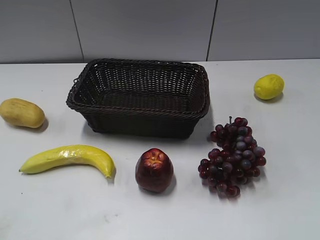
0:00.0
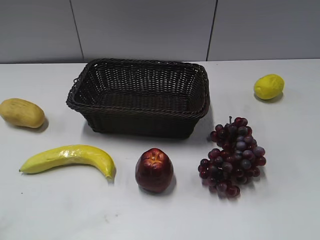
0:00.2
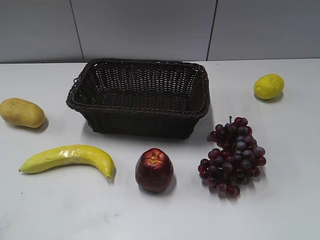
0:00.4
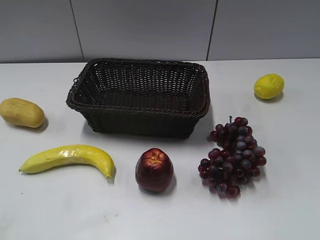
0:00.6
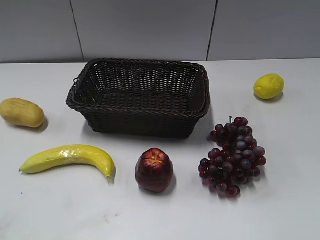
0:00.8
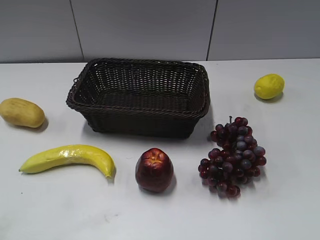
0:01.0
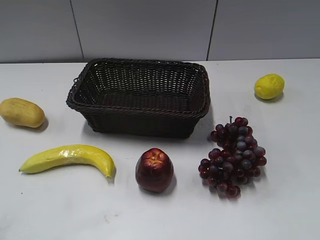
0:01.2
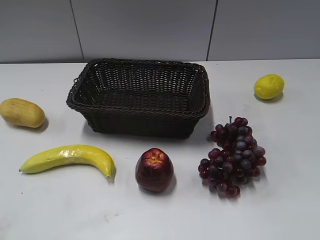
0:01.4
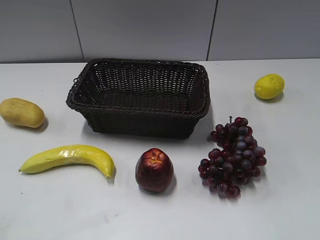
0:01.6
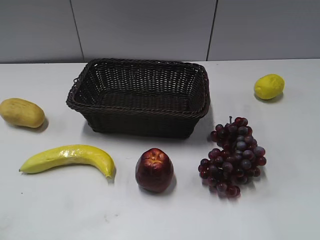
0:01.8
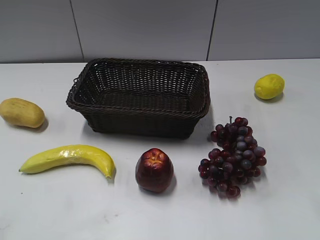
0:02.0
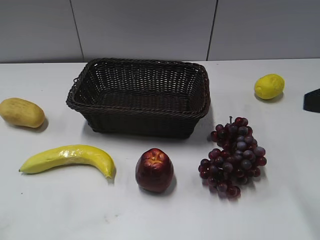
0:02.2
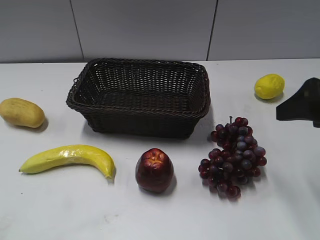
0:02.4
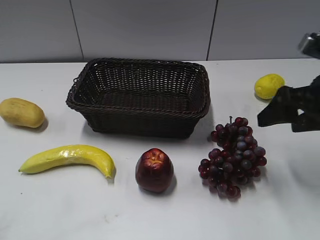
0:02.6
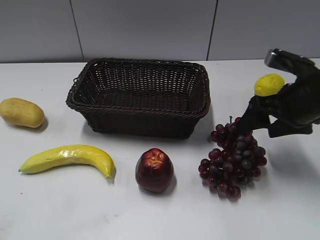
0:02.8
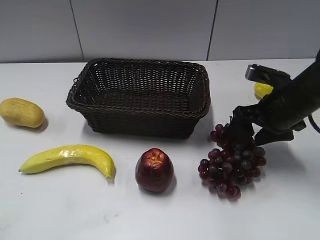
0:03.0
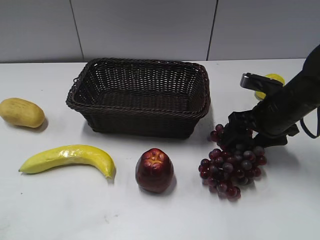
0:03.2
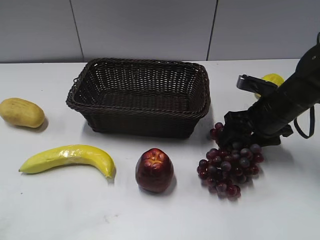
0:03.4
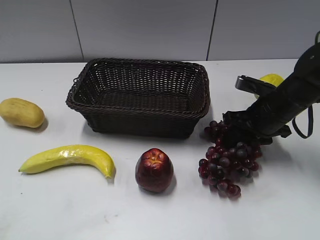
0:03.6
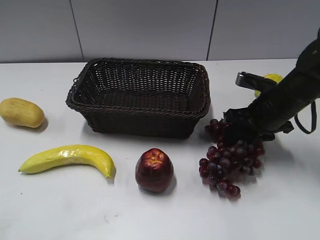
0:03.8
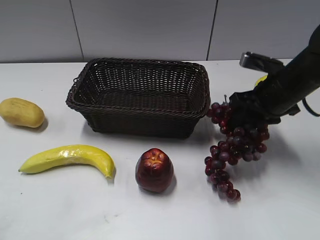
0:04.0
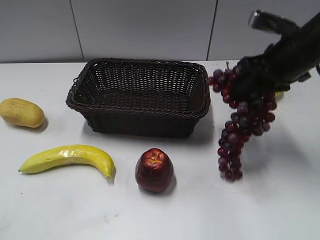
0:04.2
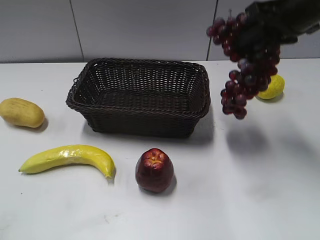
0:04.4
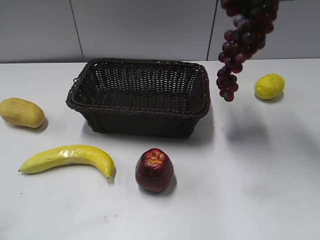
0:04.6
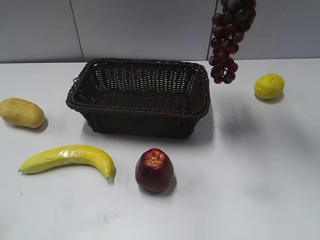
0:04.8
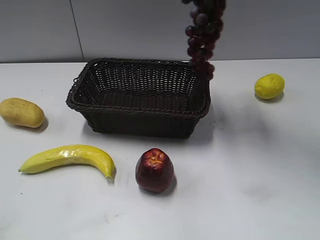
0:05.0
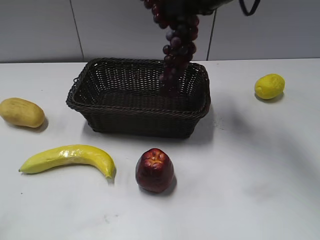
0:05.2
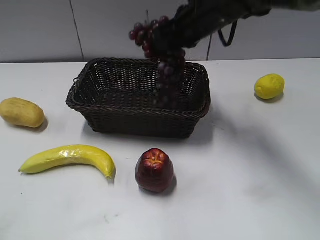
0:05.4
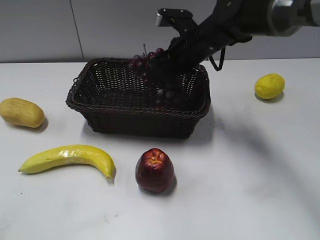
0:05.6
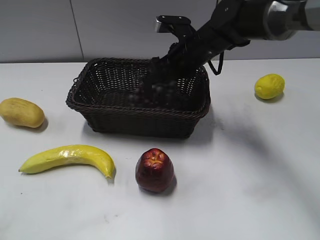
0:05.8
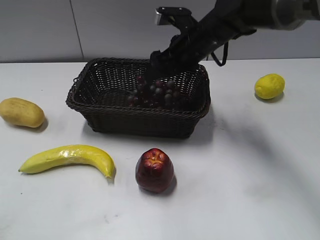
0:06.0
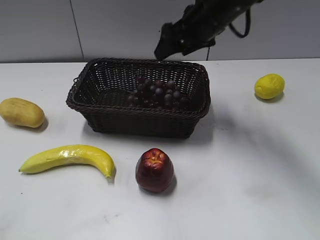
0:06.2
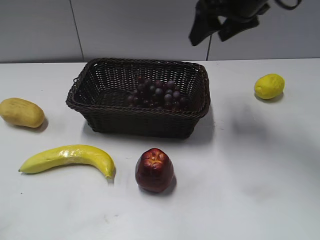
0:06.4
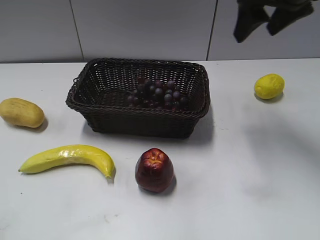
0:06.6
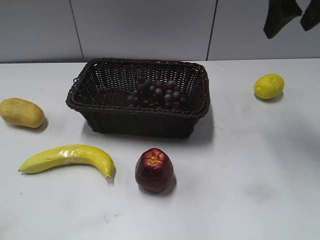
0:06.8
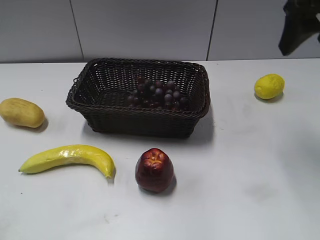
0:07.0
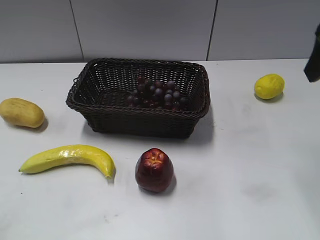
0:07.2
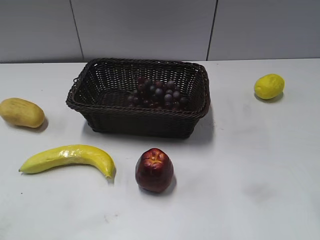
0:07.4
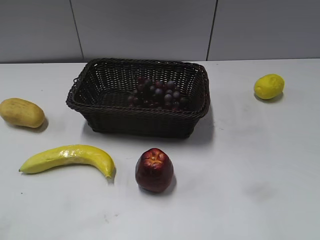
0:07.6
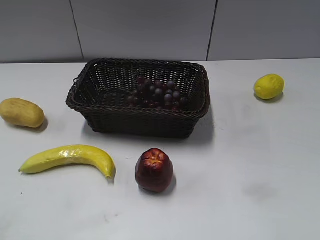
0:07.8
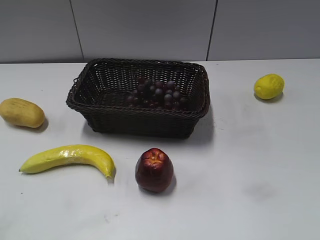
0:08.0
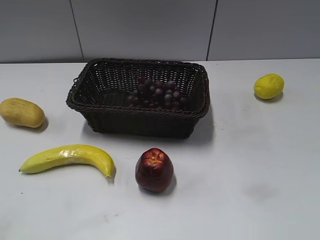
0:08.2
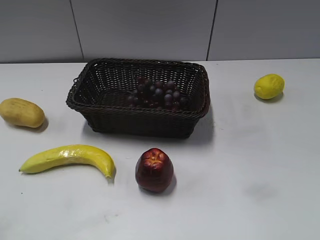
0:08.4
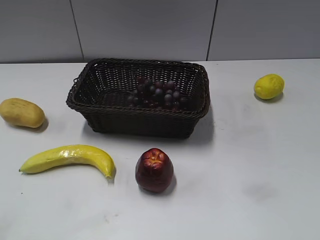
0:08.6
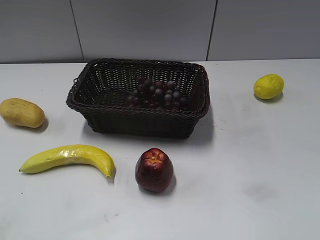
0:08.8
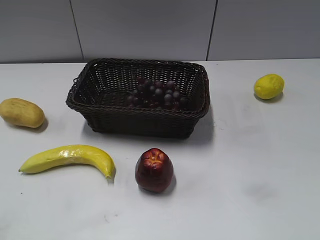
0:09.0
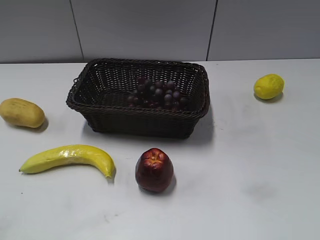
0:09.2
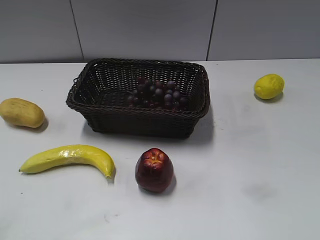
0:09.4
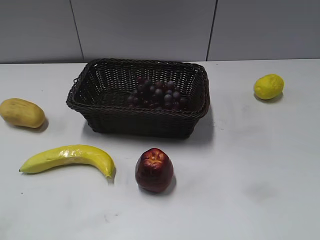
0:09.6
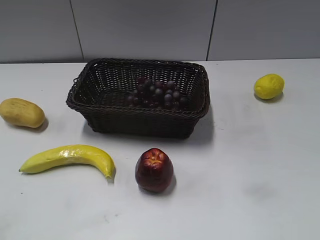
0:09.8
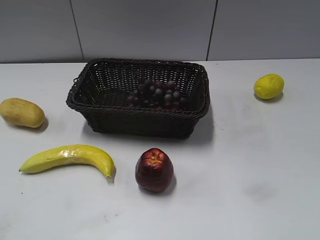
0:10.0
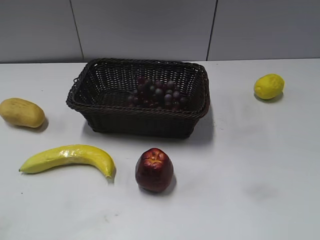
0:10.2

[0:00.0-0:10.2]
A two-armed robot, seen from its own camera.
Step, 0:02.2 to 0:04.0: Grasp the grape with right gripper.
Step, 0:04.2 to 0:05.8: Place the grape in the basket with right gripper.
0:01.4 to 0:03.0: The right gripper goes roughly 35 cm forward and downward.
0:03.0 to 0:04.4: The right gripper heads upward, covering approximately 15 cm, and closes up.
0:04.4 to 0:05.8: The right gripper is displaced downward, to the left and forward by roughly 20 cm, and opens its fingers.
0:05.8 to 0:07.2: The right gripper travels backward, upward and to the right by roughly 30 cm.
0:07.2 to 0:08.8: The right gripper goes roughly 20 cm backward.

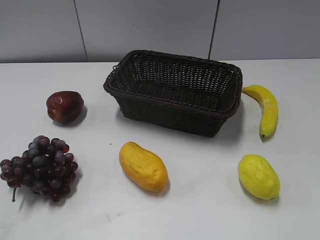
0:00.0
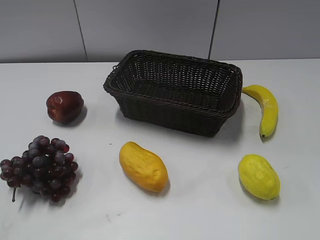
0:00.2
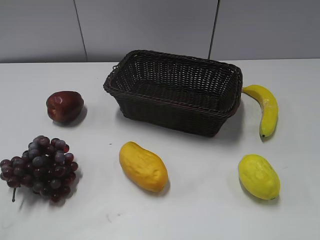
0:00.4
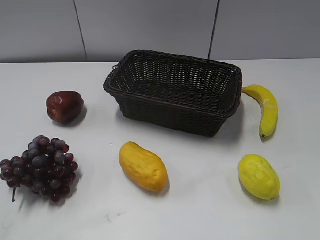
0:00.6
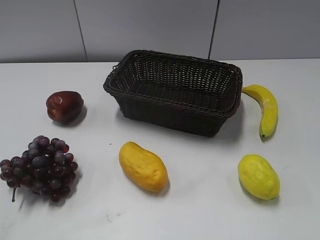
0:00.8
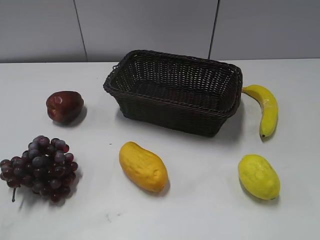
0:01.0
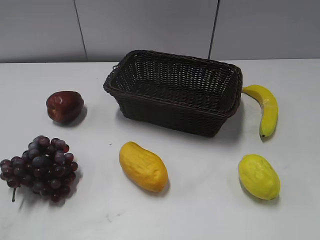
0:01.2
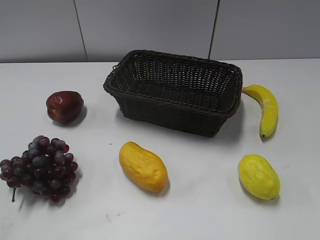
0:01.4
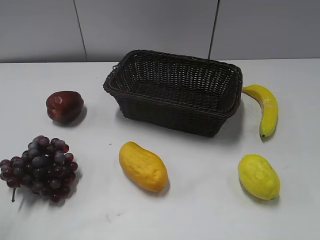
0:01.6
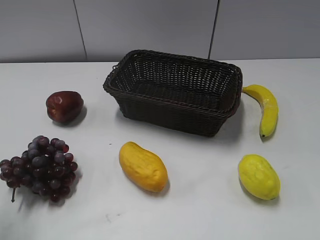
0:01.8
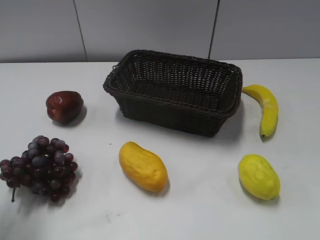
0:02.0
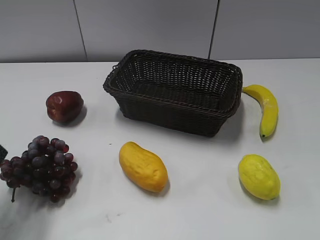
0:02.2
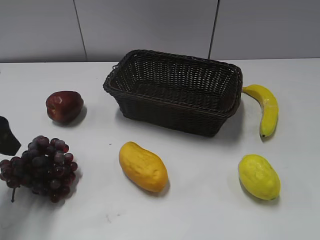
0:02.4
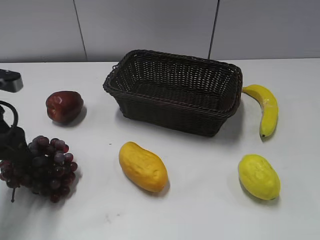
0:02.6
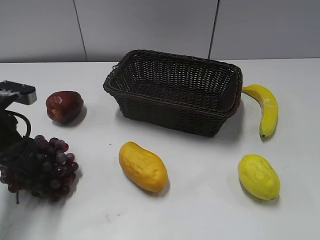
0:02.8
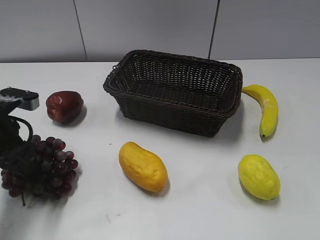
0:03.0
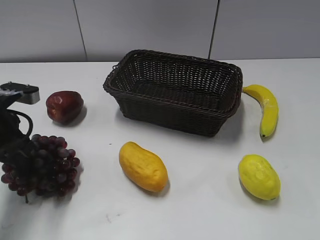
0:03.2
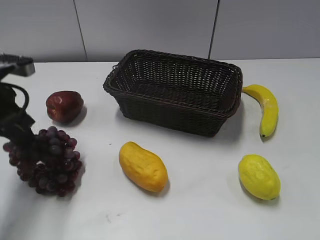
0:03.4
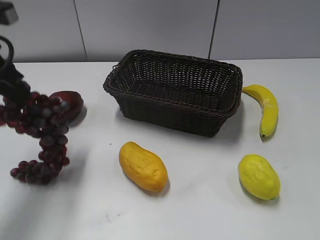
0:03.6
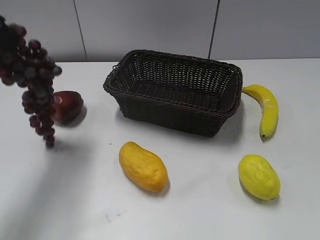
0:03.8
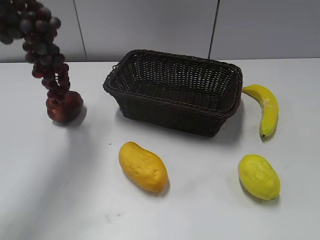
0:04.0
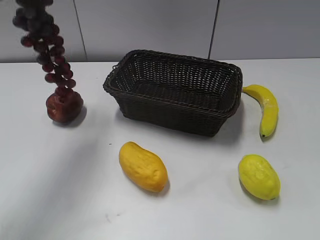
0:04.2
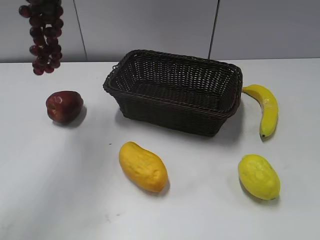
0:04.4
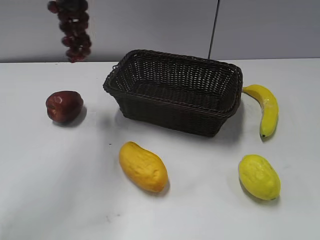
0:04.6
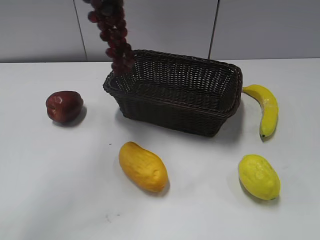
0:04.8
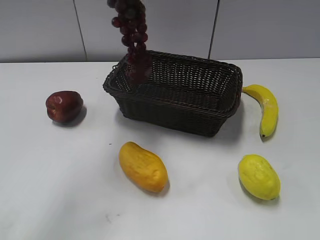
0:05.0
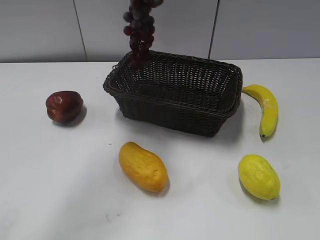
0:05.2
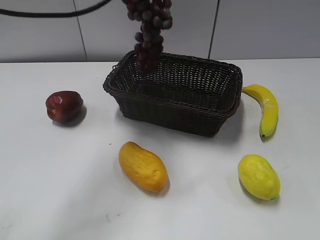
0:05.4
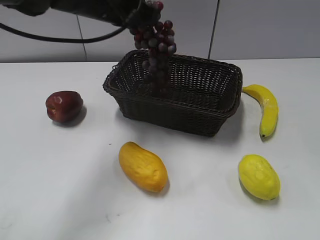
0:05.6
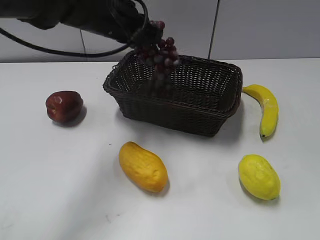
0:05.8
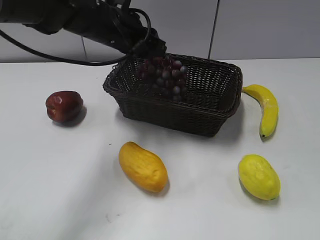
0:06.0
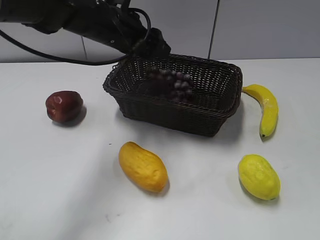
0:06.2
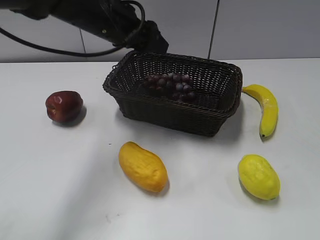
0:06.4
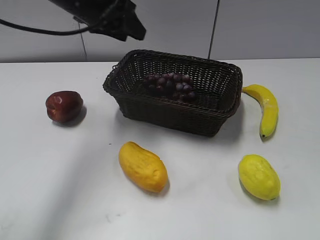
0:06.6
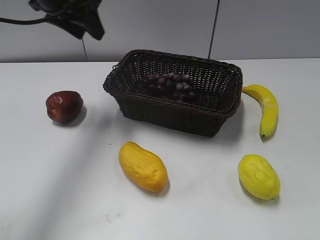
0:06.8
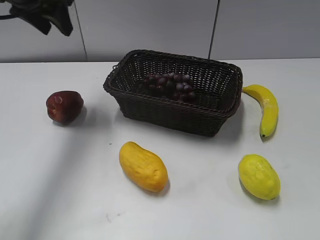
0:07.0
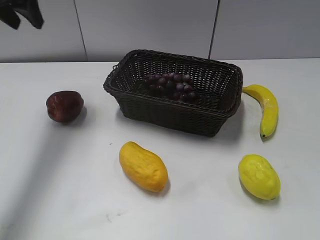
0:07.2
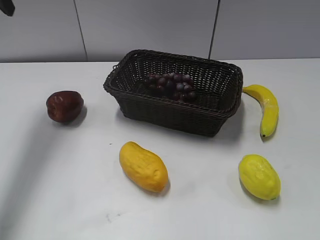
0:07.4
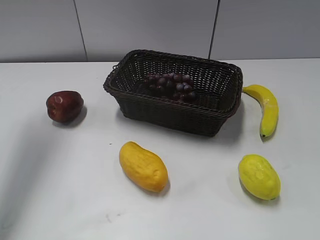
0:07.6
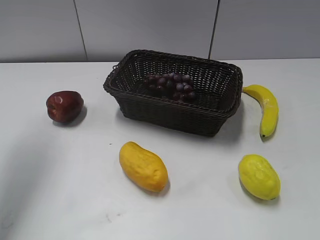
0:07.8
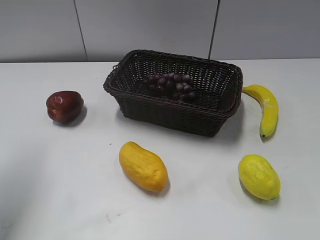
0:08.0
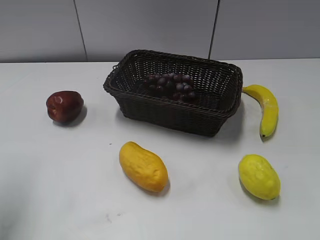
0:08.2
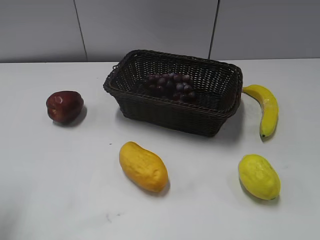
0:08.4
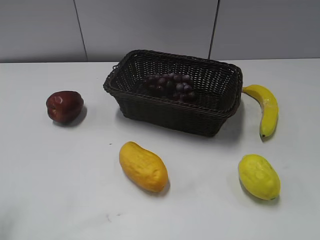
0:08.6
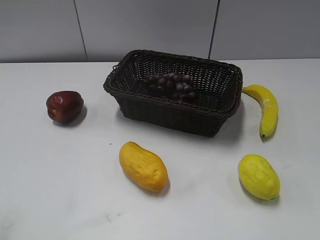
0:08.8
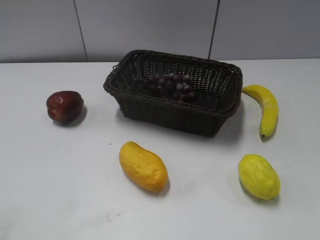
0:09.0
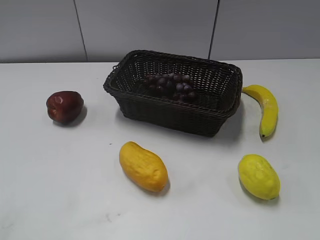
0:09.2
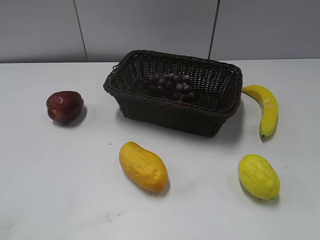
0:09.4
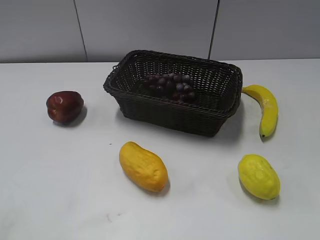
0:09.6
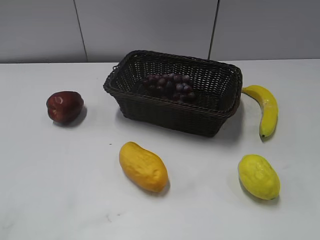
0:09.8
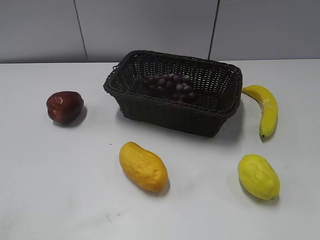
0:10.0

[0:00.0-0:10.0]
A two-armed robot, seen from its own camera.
Step, 0:02.0 to 0:03.0: Grasp the grape with left gripper.
Step, 0:03.2 to 0:06.4: Place the grape in the basket with left gripper.
0:01.4 to 0:02.8: The left gripper shifts roughly 25 cm forward and downward.
0:02.8 to 0:04.2: The left gripper heads upward, covering about 25 cm, and closes up.
0:04.2 to 0:05.8: The left gripper goes roughly 25 cm downward, to the right and forward.
0:05.8 to 0:07.2: The left gripper shifts roughly 20 cm to the left and upward, and opens its fingers.
0:07.2 to 0:08.6: The left gripper goes some 30 cm backward.

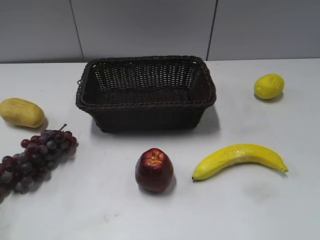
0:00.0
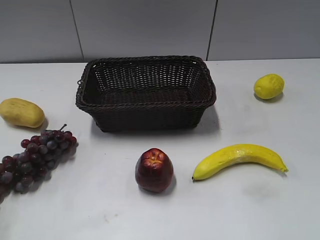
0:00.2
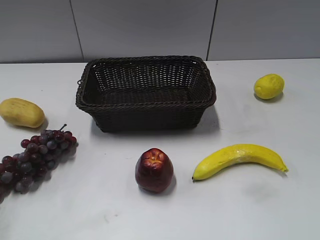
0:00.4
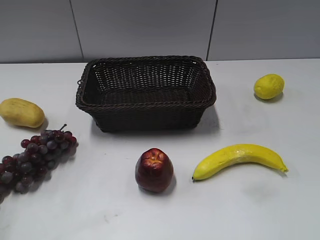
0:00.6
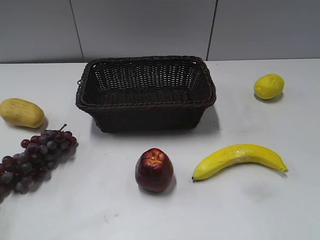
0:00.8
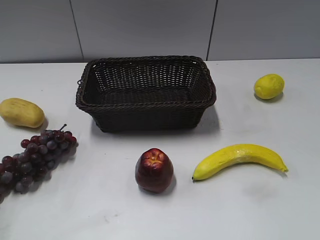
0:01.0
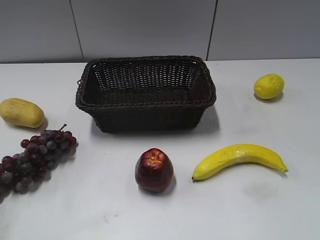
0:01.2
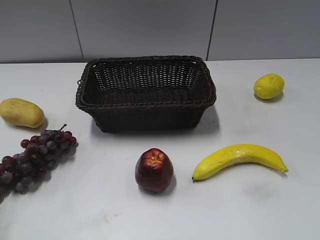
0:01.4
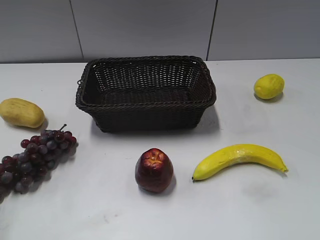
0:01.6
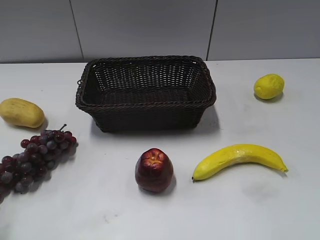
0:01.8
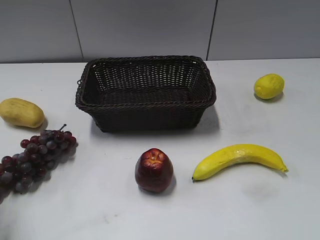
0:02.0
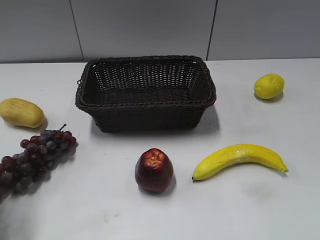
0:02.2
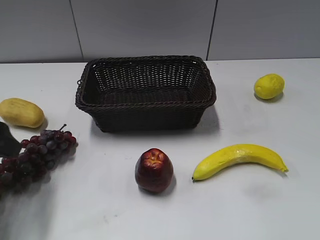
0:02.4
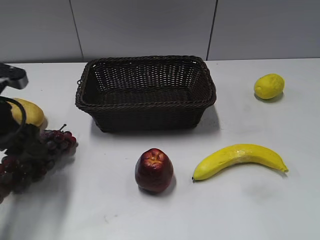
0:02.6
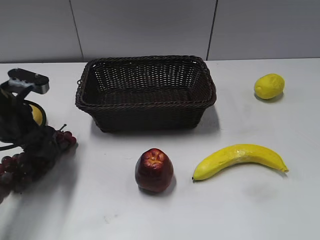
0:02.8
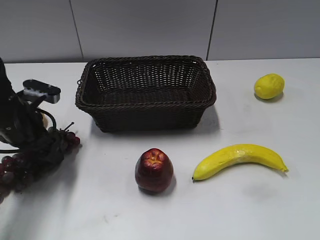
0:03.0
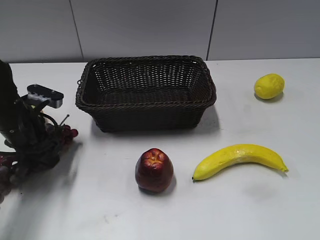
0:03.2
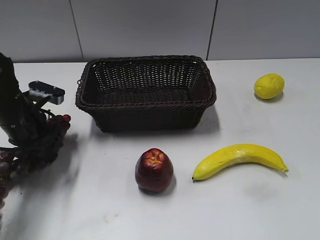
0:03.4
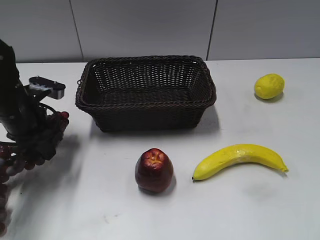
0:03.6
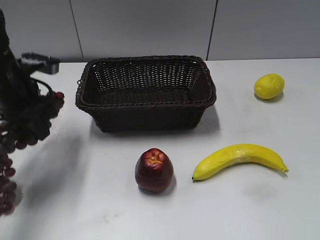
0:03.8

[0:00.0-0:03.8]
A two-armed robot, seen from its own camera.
Step, 0:02.4 to 0:03.0: Grasp the grape with left gripper.
0:01.2 to 0:02.6: The left gripper goes some 25 cm forward.
0:02.6 to 0:03.8: The left gripper shifts approximately 5 cm forward, travels downward and back again, about 5 cm each way, and closes up.
